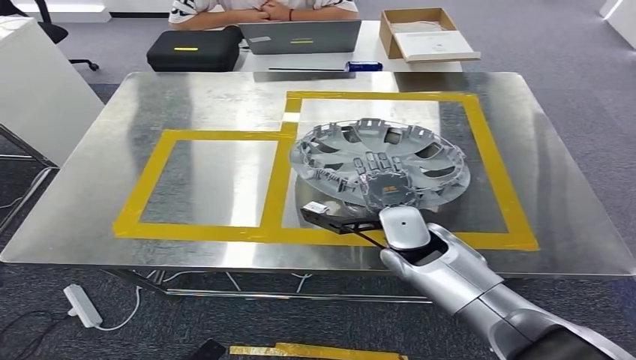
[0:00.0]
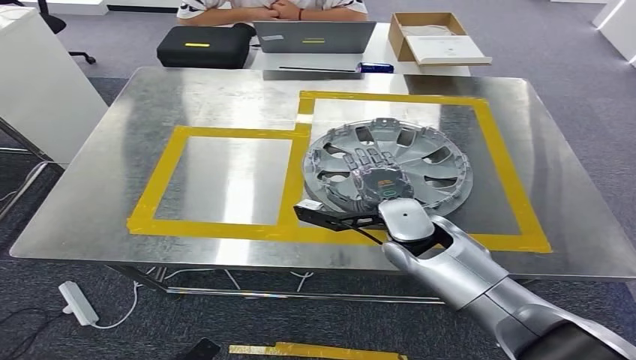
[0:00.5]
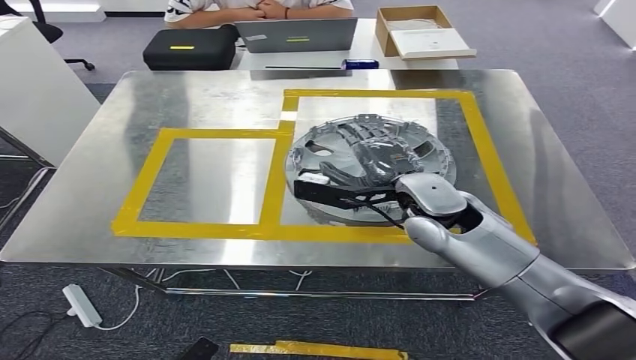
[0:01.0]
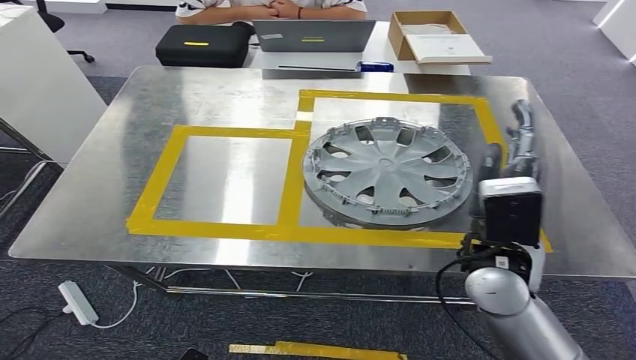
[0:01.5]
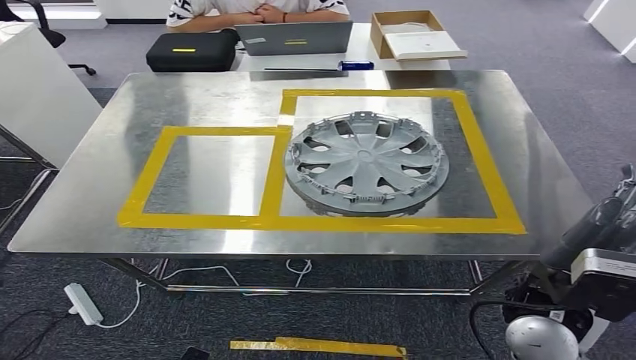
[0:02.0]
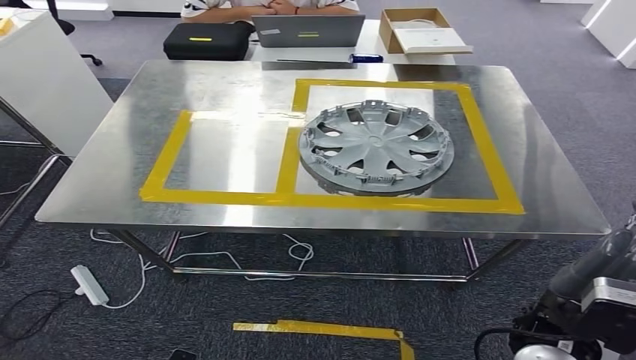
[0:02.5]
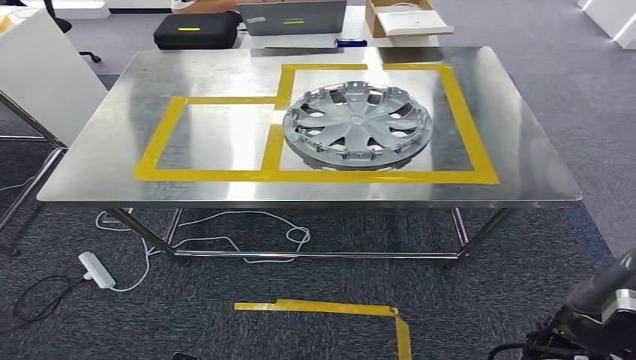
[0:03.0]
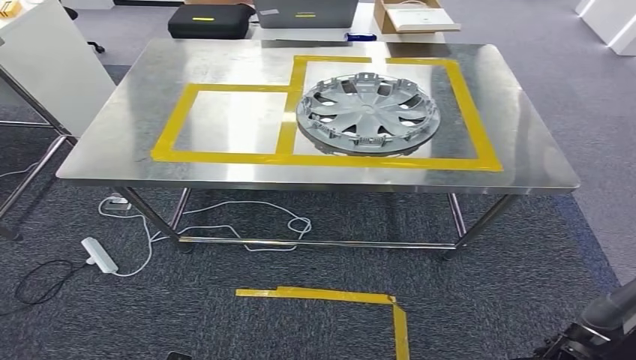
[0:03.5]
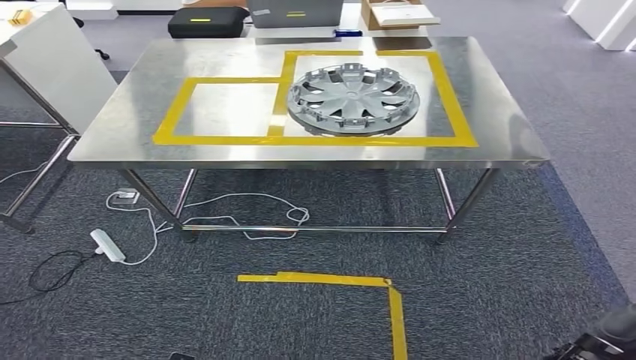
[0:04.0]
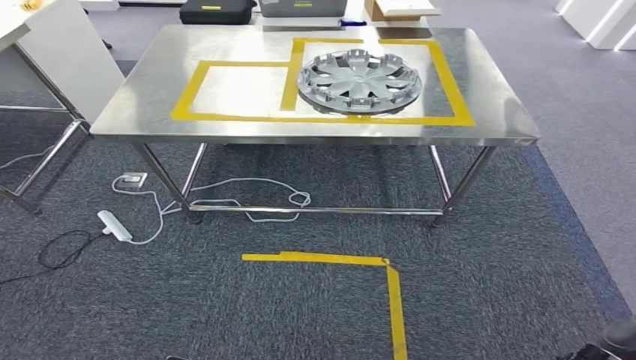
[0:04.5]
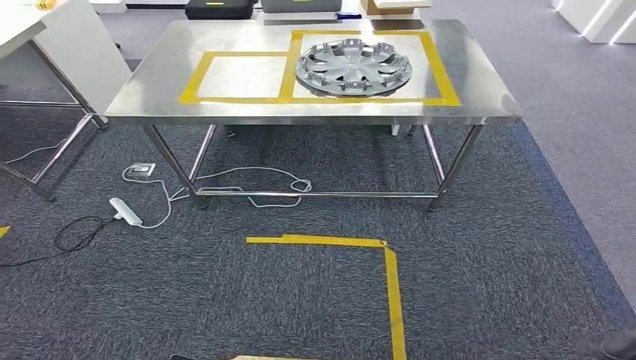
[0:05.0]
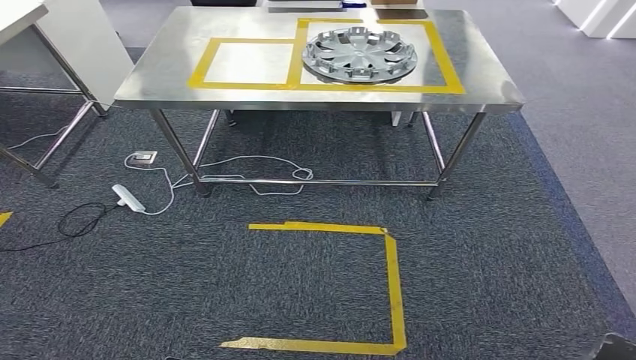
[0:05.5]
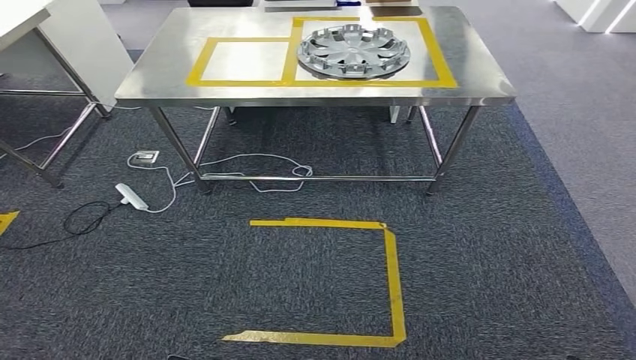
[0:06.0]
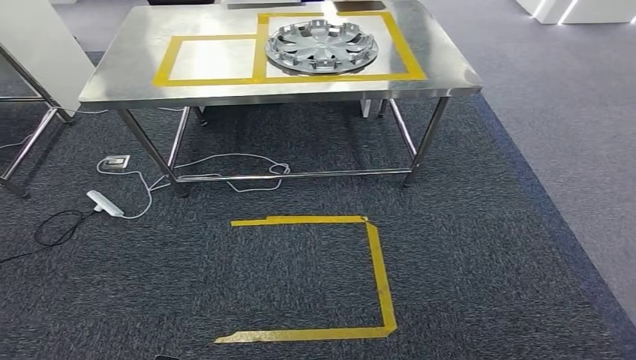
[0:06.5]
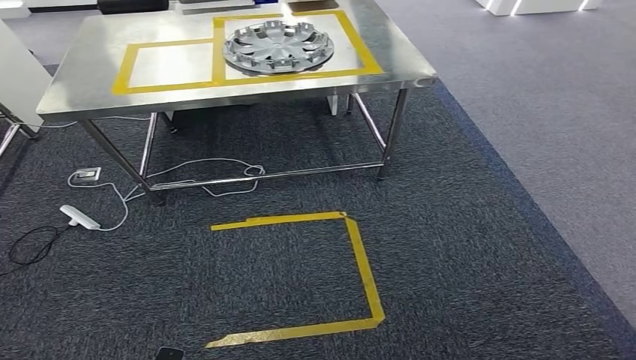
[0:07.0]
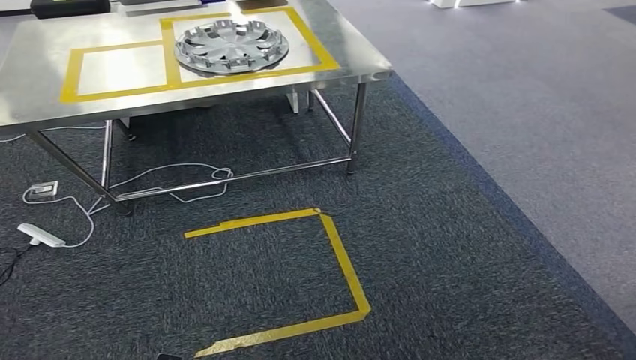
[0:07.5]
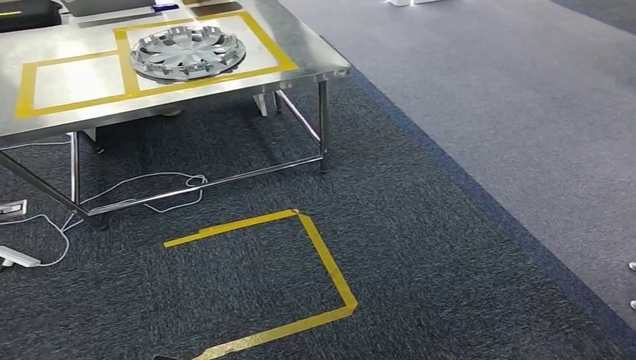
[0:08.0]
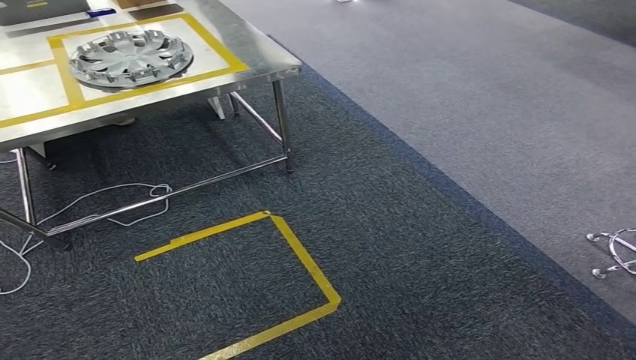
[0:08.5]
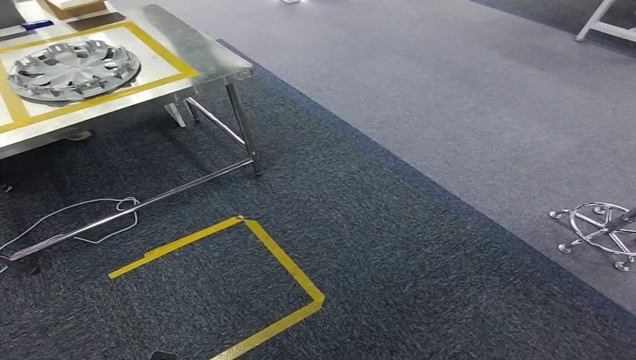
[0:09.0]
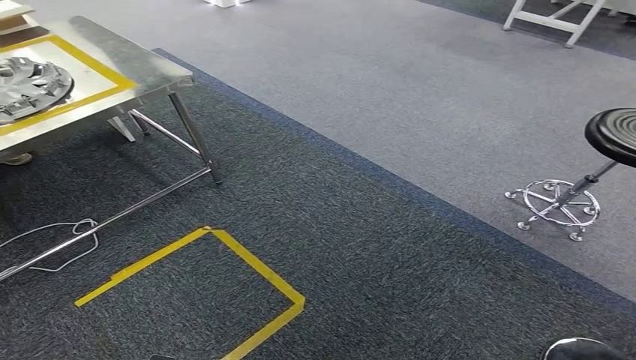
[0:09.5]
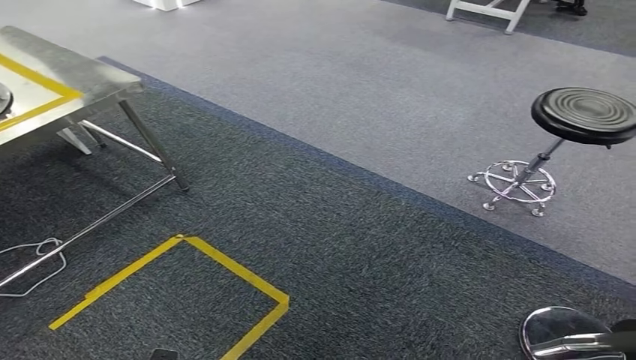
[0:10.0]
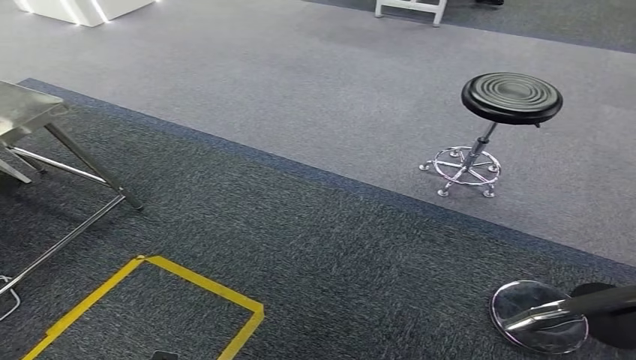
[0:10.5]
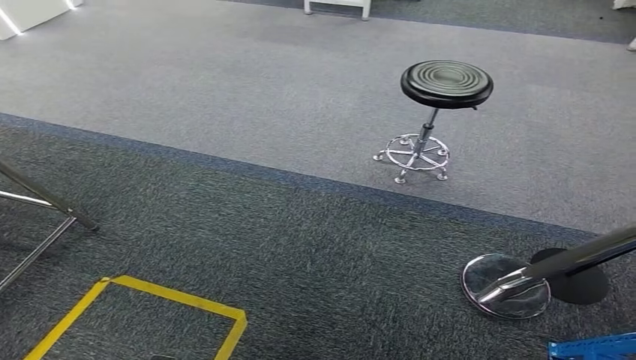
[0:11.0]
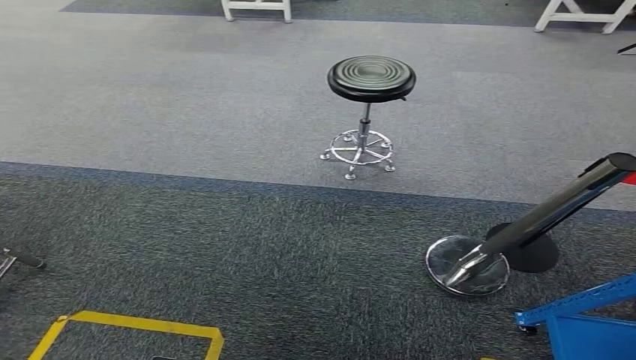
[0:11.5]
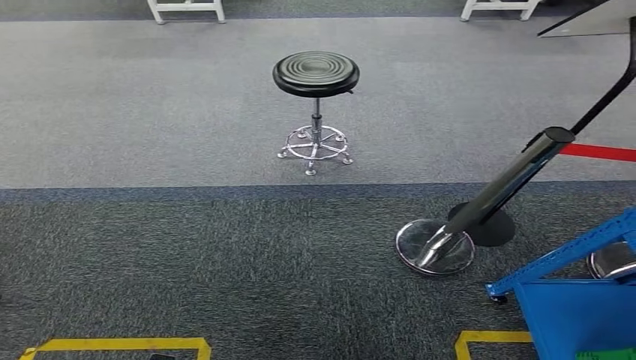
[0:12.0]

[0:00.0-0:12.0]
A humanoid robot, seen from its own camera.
Step, 0:00.0 to 0:02.5: Insert the small component into the corresponding slot on the workbench.

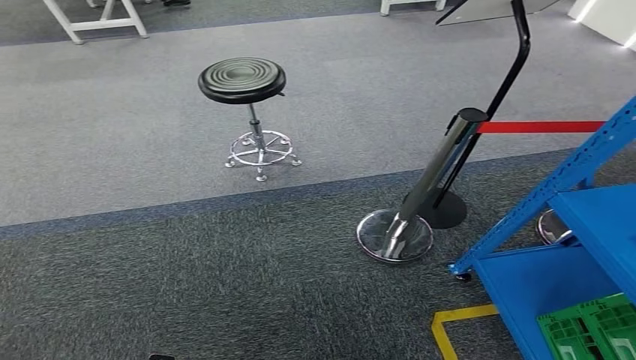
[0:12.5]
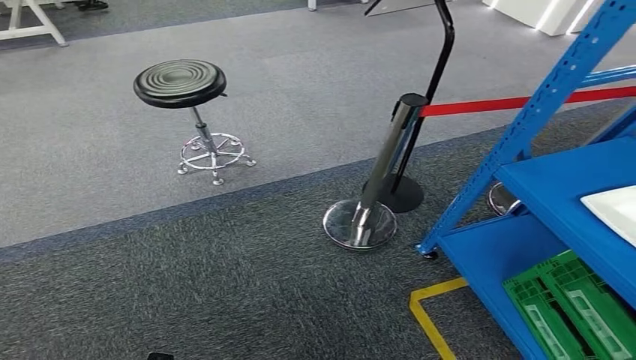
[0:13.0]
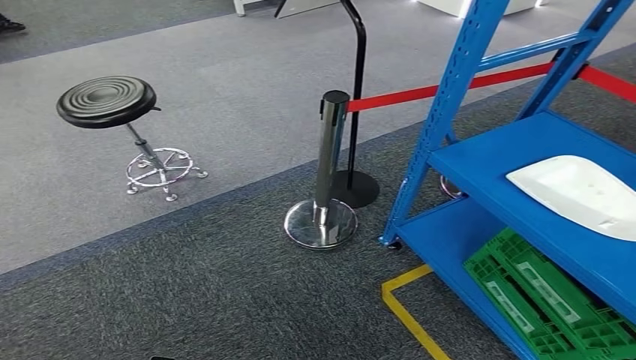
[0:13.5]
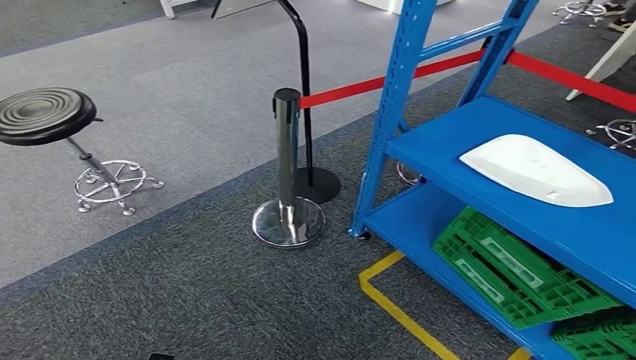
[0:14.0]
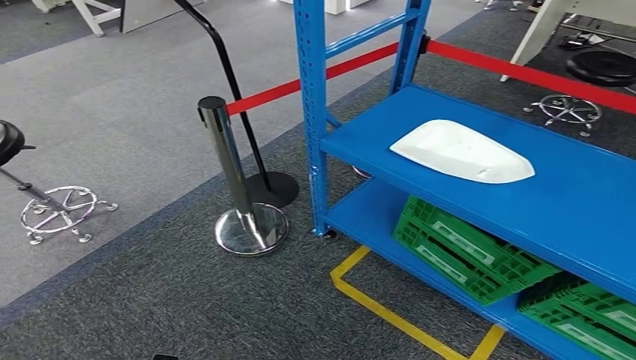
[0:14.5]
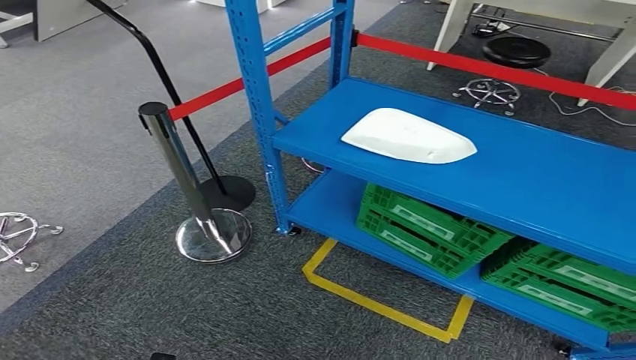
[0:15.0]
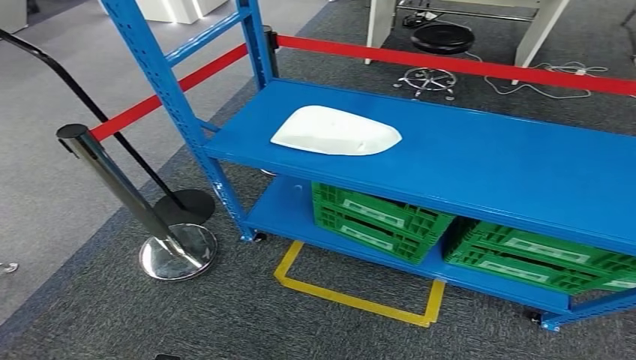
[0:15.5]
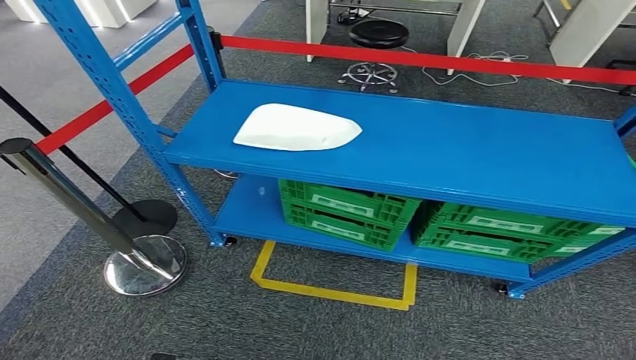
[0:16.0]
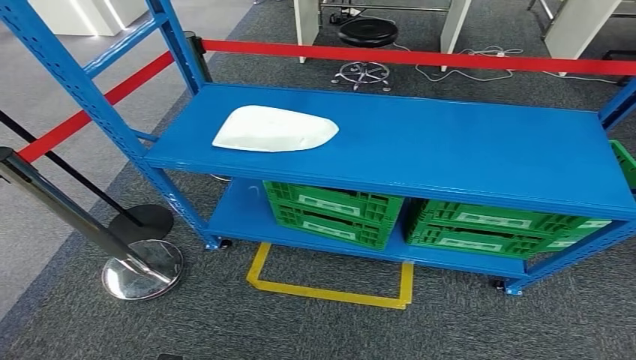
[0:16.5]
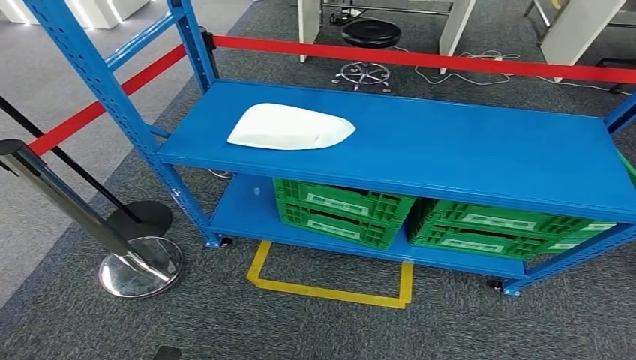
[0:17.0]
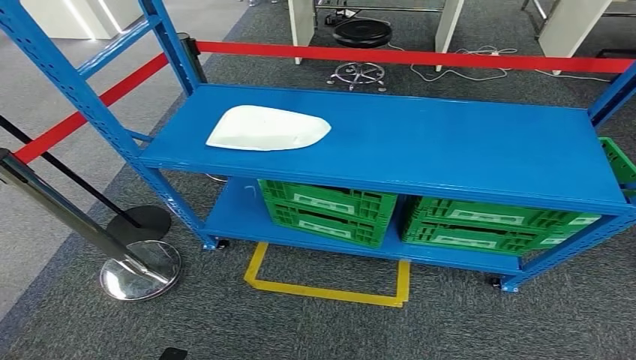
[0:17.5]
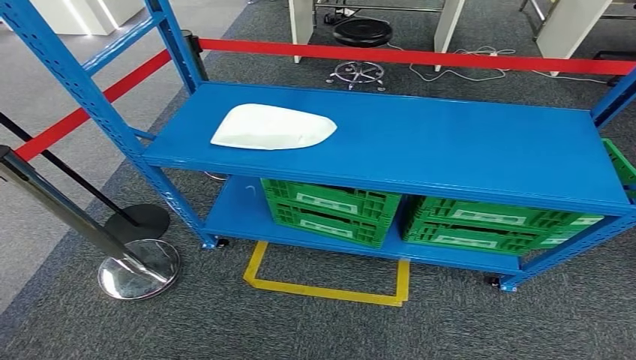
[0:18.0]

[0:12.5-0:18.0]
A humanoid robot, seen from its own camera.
Step, 0:12.5 to 0:18.0: Return to the initial position at the workbench.
